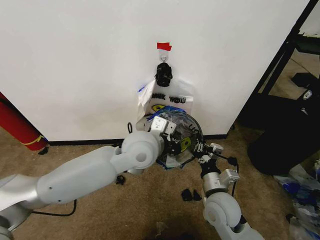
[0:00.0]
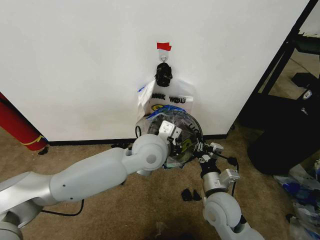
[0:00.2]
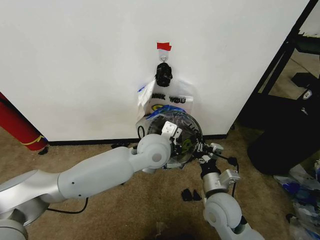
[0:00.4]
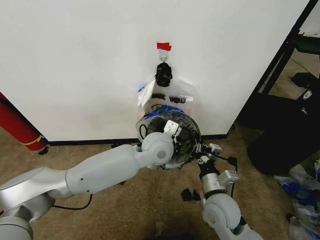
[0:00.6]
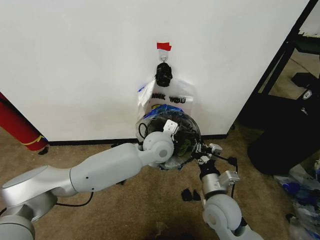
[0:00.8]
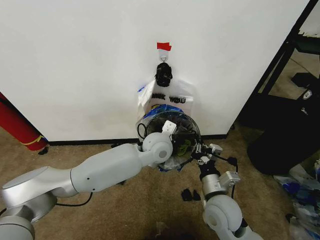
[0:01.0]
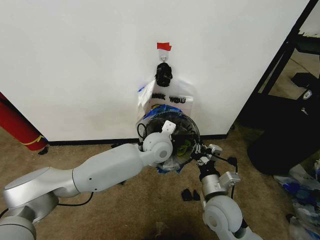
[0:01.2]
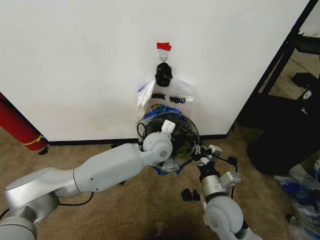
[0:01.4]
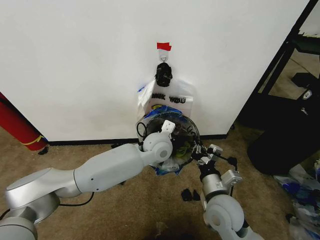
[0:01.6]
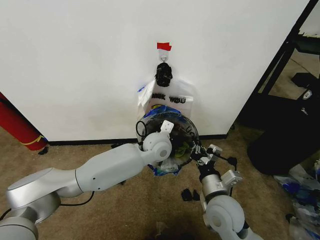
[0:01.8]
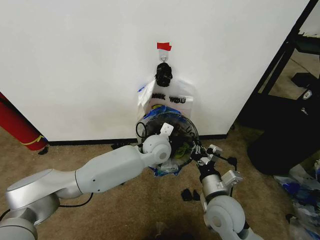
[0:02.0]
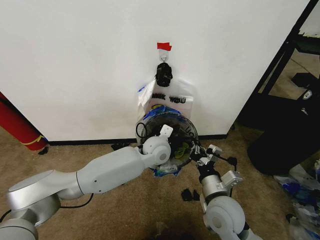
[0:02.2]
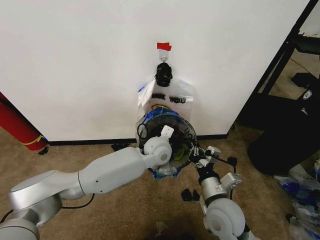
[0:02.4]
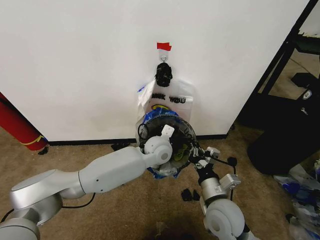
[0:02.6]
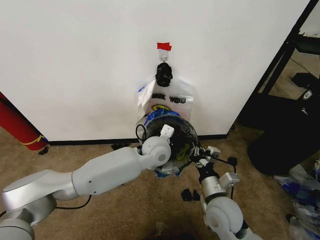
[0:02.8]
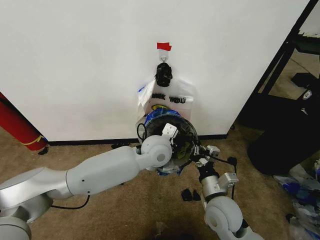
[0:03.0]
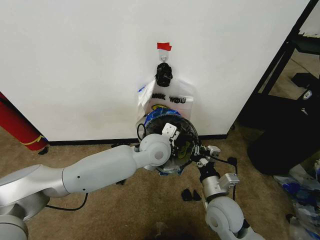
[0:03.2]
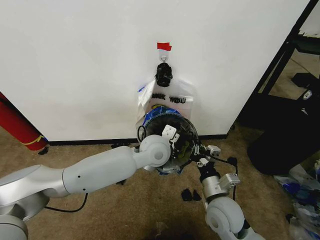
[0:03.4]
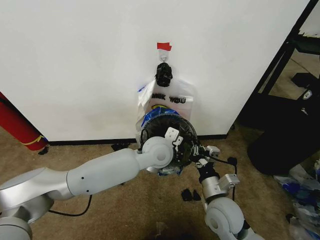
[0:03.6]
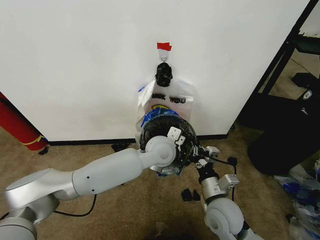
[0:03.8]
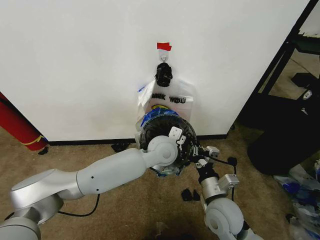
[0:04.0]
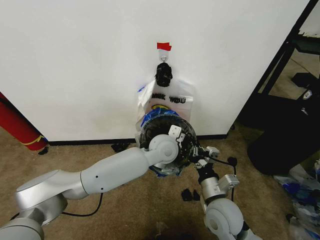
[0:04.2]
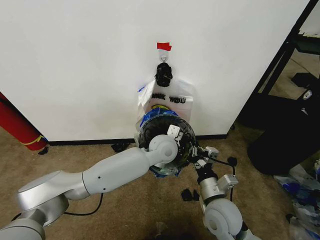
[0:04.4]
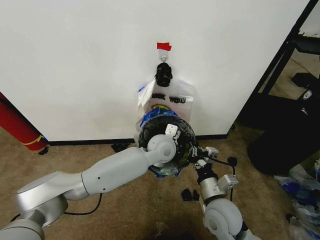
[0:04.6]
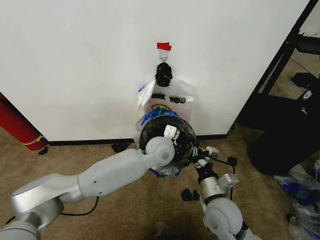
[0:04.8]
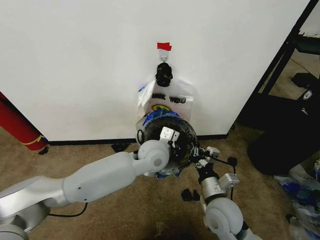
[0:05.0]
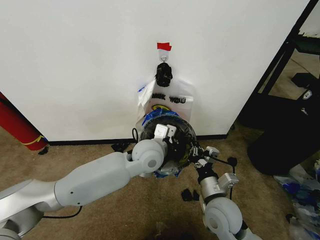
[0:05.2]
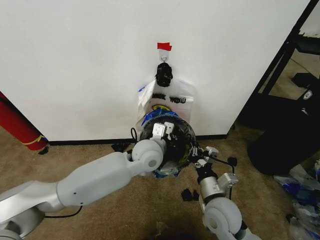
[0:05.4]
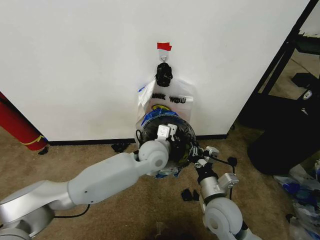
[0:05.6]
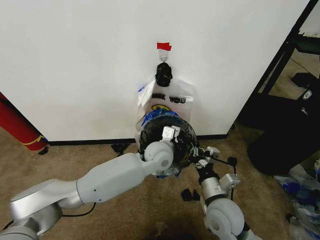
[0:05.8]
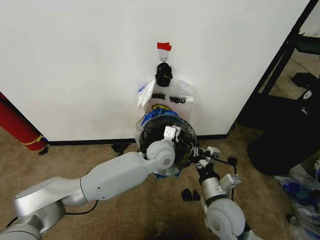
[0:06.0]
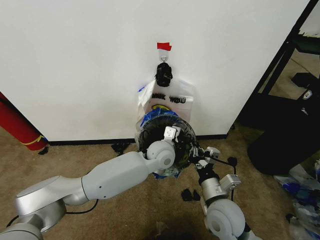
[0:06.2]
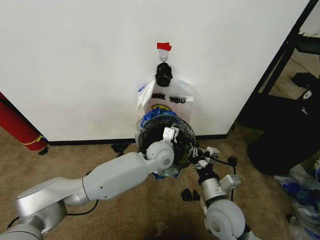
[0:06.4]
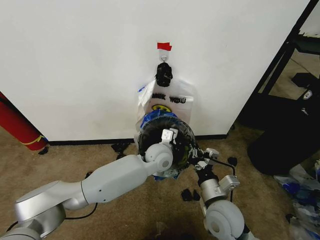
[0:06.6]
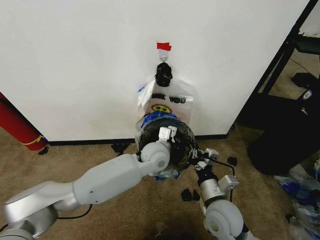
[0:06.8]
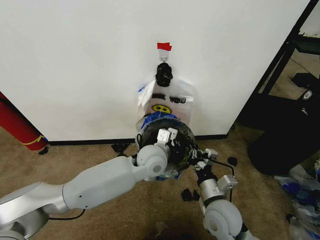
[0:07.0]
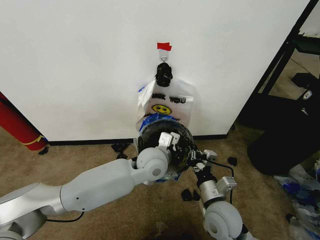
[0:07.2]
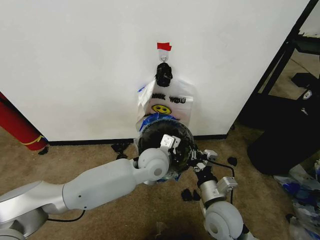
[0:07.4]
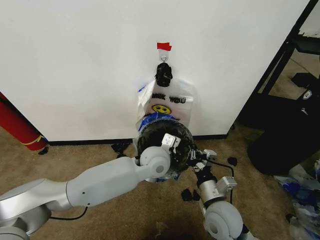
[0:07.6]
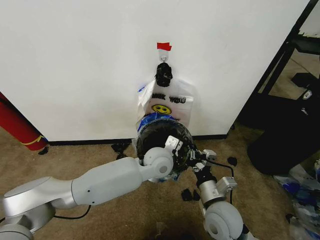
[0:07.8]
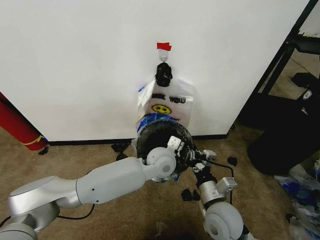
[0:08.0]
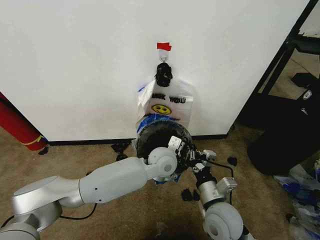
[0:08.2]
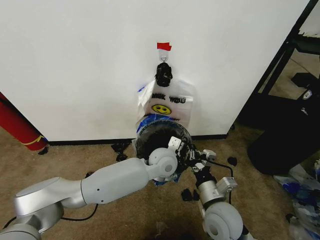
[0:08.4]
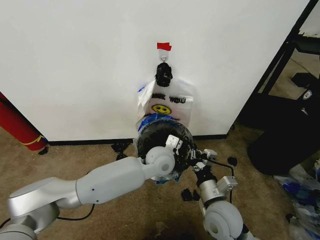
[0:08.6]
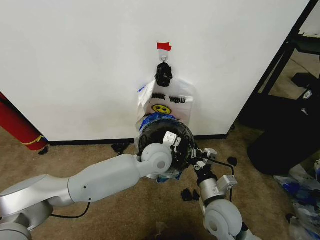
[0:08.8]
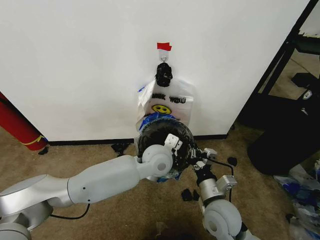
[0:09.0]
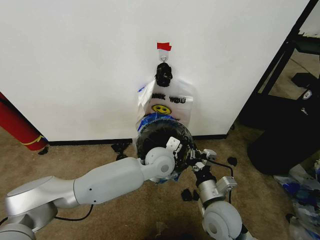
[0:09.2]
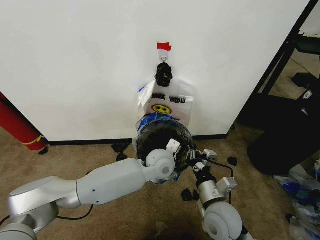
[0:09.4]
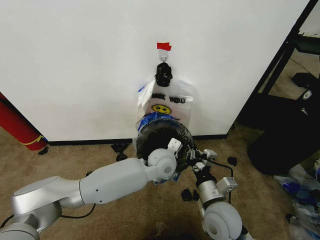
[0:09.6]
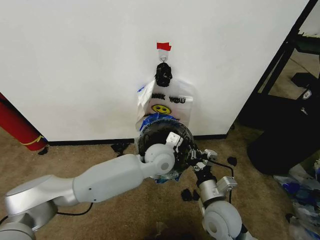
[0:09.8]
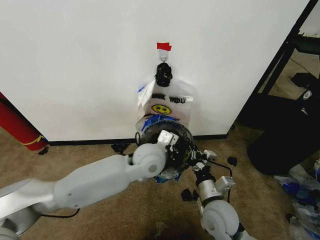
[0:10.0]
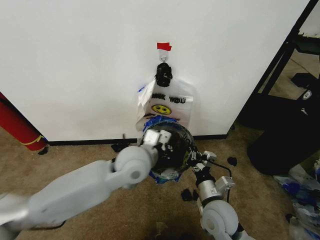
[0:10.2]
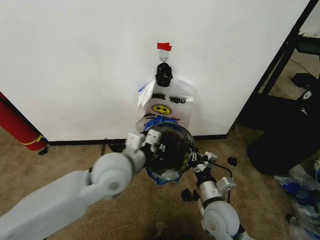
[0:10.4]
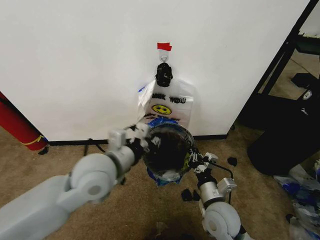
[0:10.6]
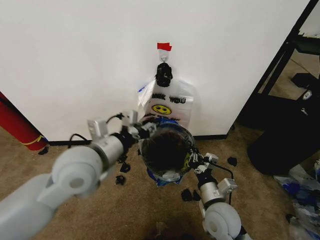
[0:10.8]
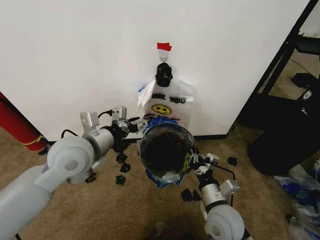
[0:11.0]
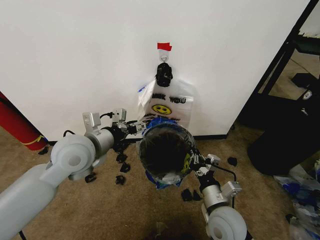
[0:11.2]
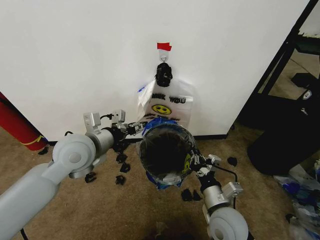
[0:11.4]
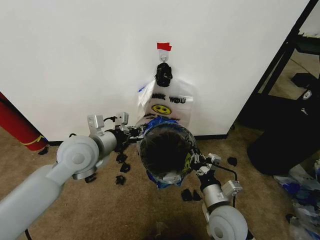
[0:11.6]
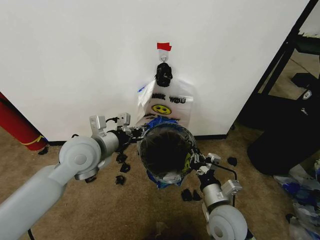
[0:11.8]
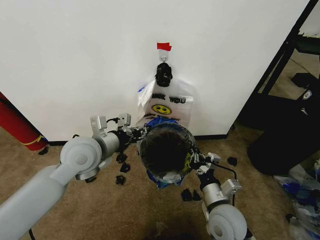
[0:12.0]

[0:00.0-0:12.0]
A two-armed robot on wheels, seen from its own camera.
Task of the whole recording: Pick up the garbage bag from the wall and place it over the trash bin.
0:00.0 to 0:01.6: The left gripper is displaced downward and forward by some 10 cm.
0:01.6 to 0:04.4: The grippers make only small movements.
0:06.0 to 0:09.0: The grippers stay close to where they were, moving slightly.
0:09.0 to 0:10.4: The left gripper is displaced to the left, backward and upward by some 15 cm.
0:10.4 to 0:12.0: The left gripper shifts about 10 cm to the left, and opens.

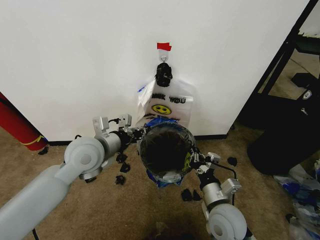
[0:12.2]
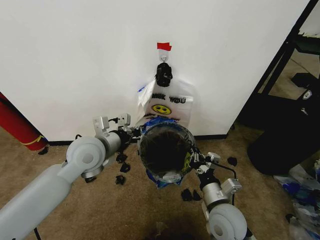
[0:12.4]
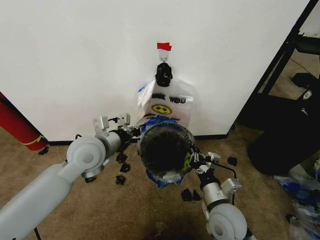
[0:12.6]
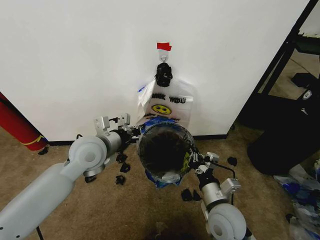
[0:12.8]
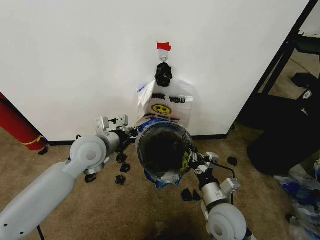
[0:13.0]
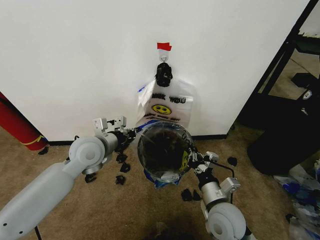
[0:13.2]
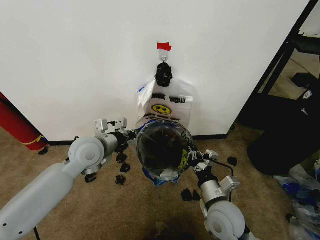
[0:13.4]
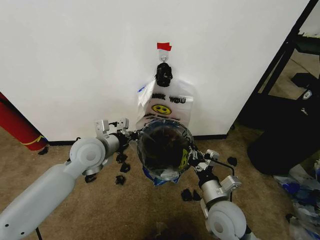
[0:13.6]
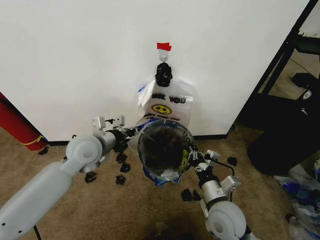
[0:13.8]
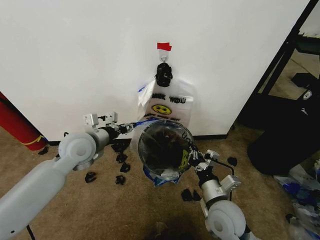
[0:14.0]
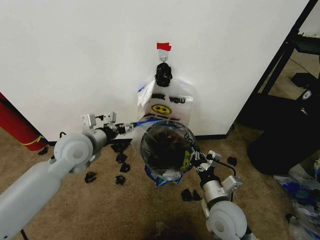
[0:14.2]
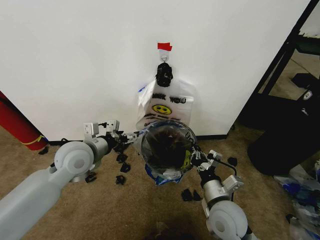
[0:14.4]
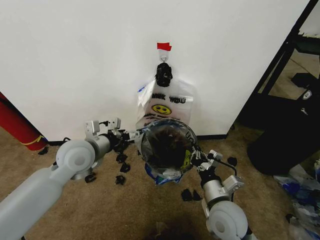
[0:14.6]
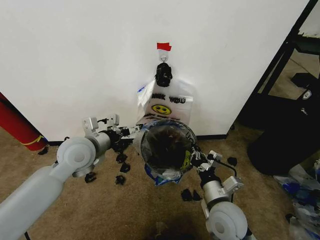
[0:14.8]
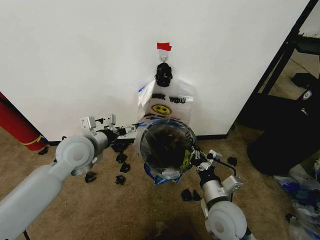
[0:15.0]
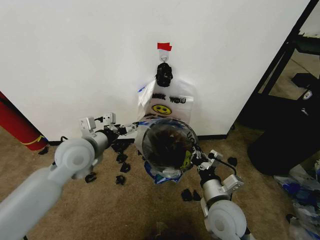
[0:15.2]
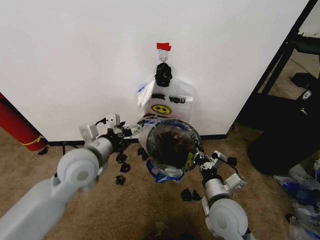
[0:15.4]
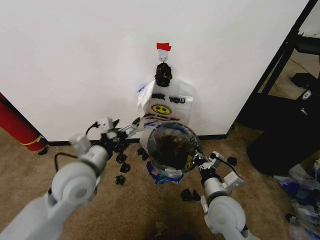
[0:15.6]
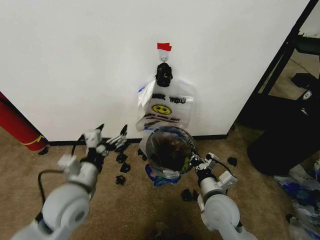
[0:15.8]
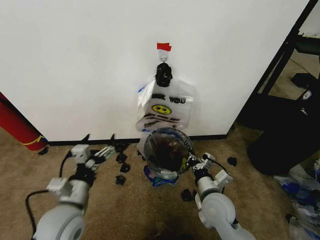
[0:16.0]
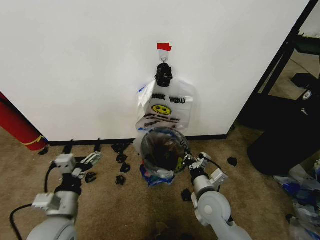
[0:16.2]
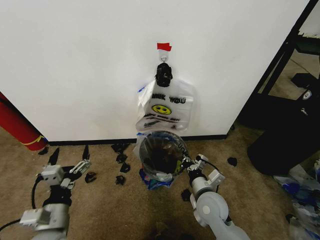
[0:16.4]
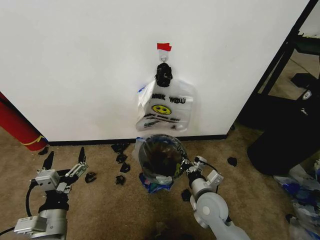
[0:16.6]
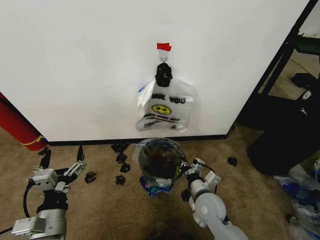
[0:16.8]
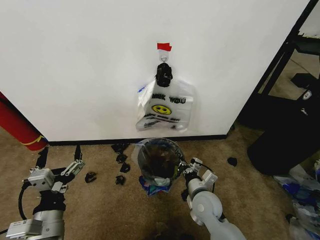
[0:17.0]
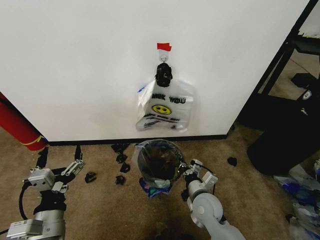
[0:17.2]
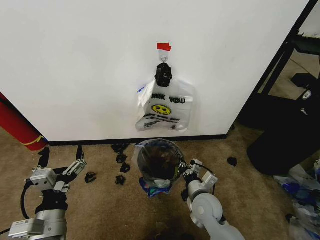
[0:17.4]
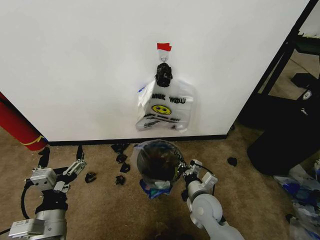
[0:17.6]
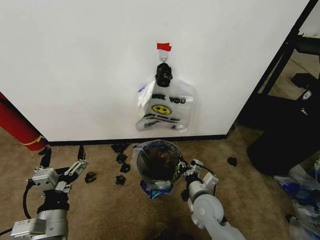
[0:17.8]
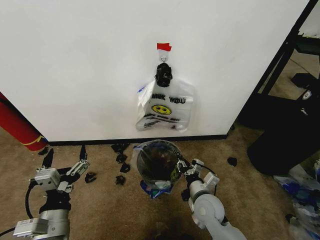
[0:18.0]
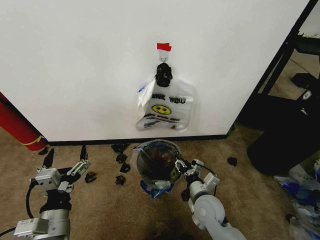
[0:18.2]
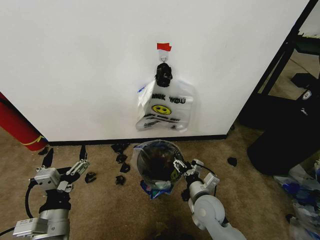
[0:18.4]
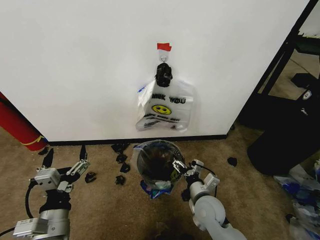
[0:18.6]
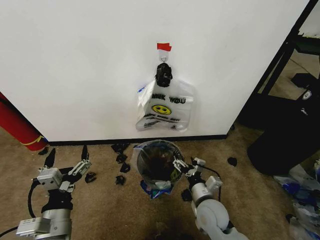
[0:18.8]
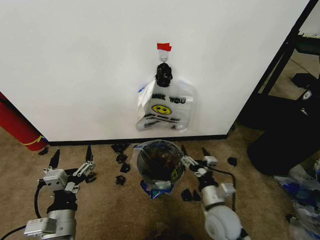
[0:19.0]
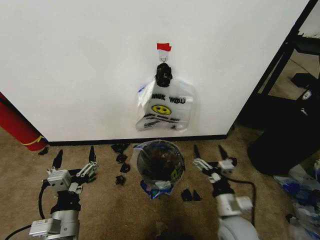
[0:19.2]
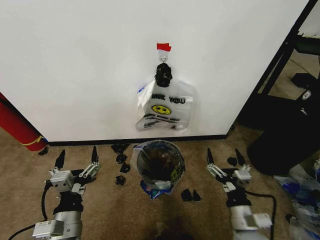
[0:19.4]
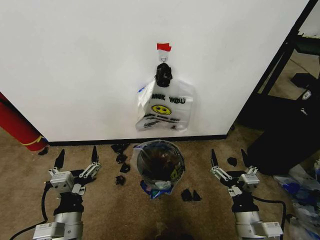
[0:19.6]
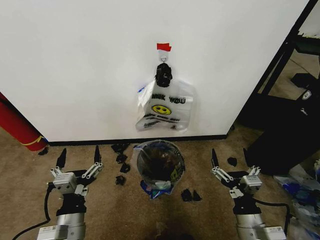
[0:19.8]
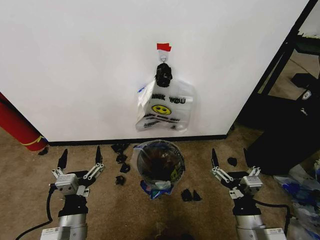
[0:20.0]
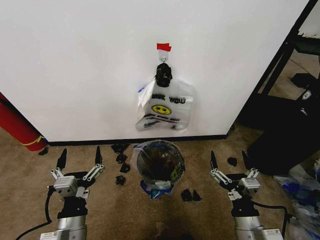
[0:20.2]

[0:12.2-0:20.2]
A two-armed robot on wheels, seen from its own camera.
Task of the whole recording: Pick up the garbage bag from the wall and place it over the trash bin.
0:12.2 to 0:13.8: The grippers move only a little.
0:13.8 to 0:15.4: The left gripper moves backward, roughly 5 cm, and opens up.
0:15.4 to 0:17.0: The right gripper heads downward and forward, covering approximately 10 cm. Meanwhile the left gripper shifts approximately 20 cm backward and downward.
0:17.0 to 0:18.6: The right gripper opens.
0:18.6 to 0:20.2: The right gripper moves backward, to the right and upward, some 15 cm.
